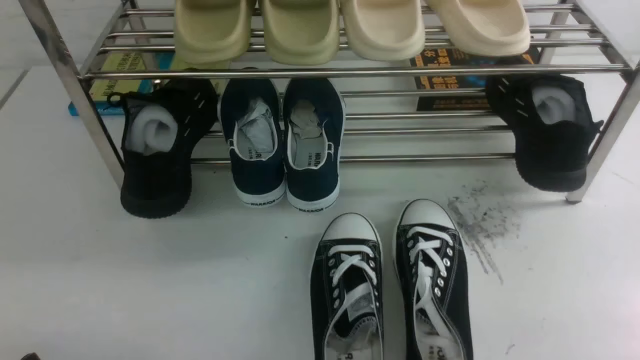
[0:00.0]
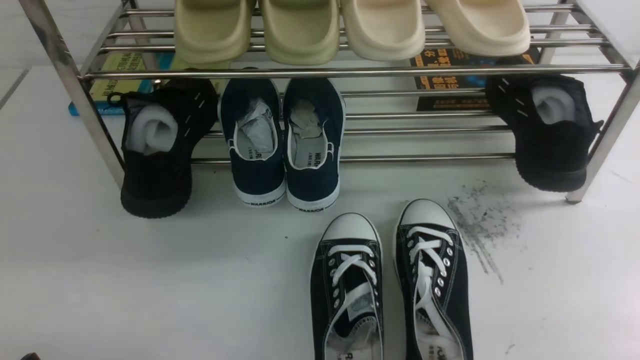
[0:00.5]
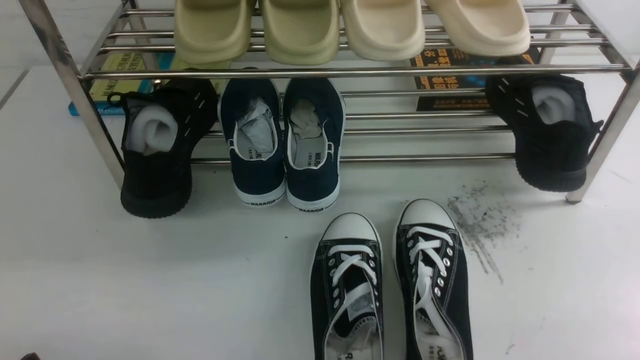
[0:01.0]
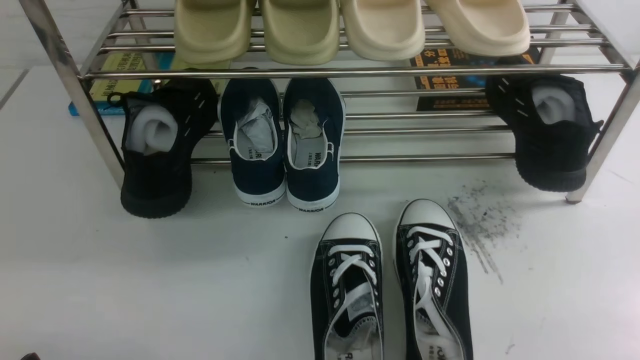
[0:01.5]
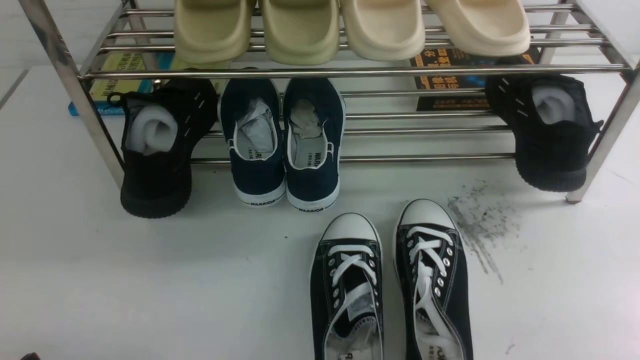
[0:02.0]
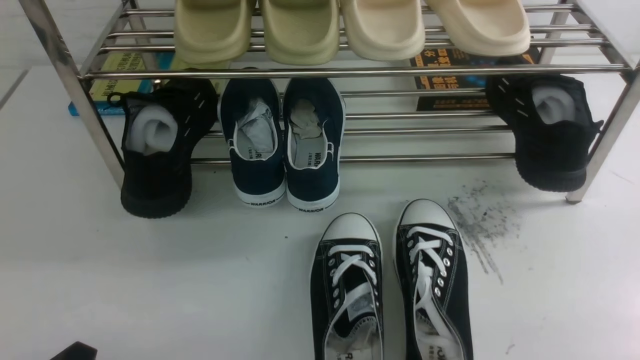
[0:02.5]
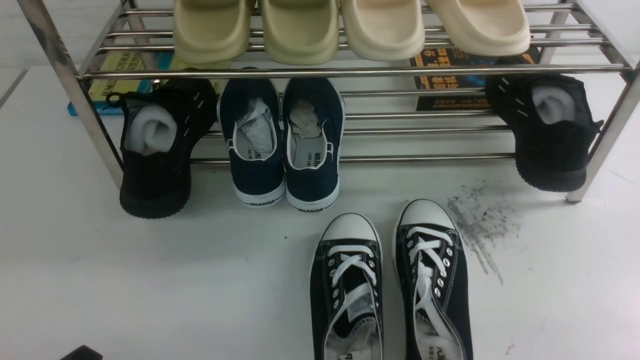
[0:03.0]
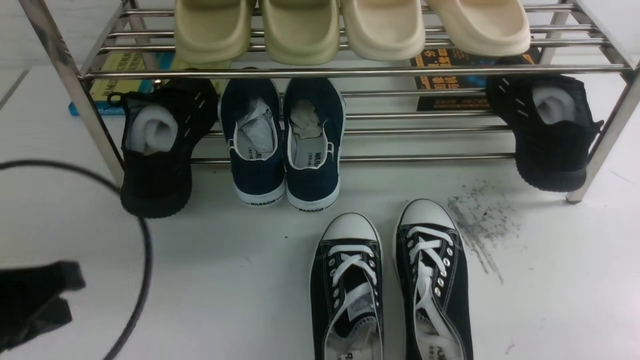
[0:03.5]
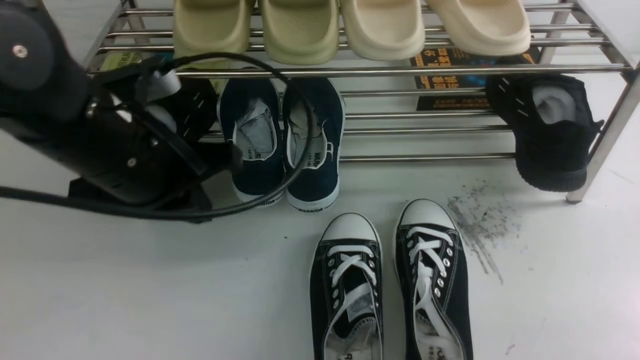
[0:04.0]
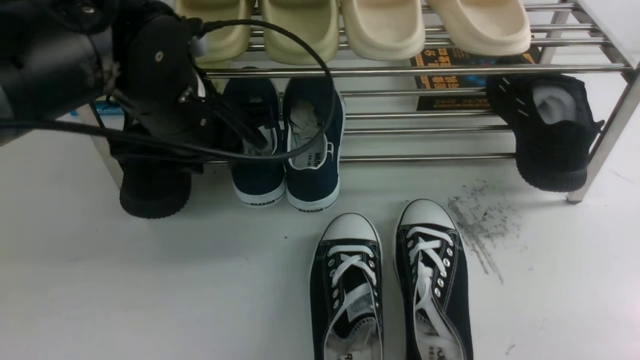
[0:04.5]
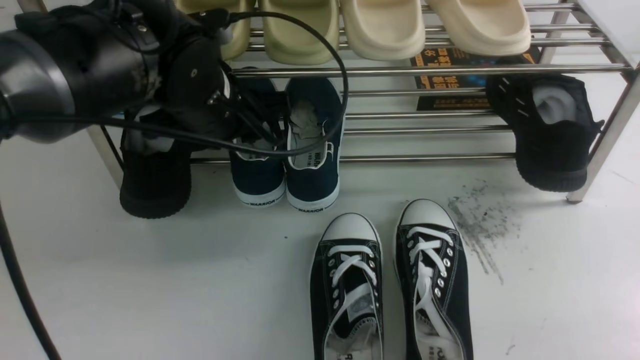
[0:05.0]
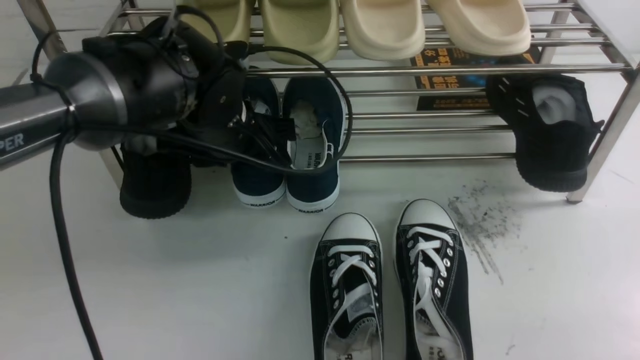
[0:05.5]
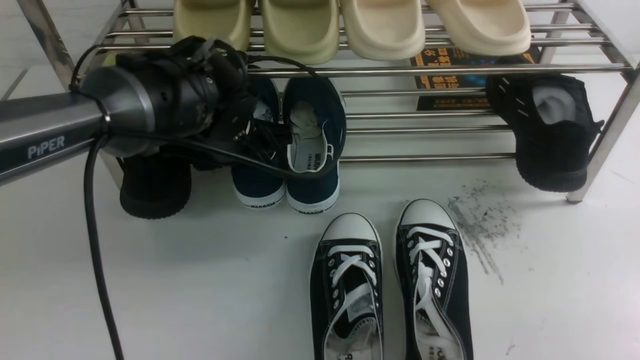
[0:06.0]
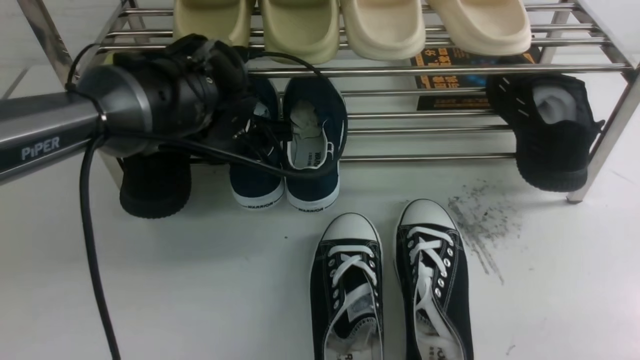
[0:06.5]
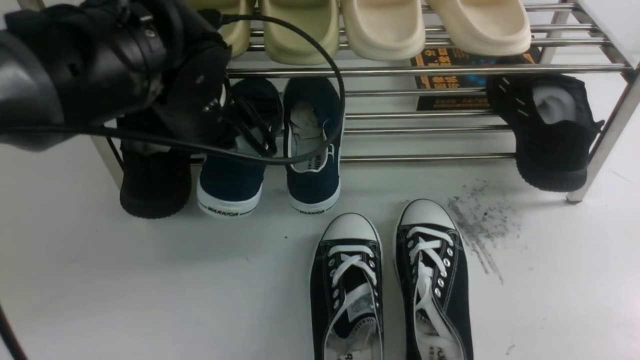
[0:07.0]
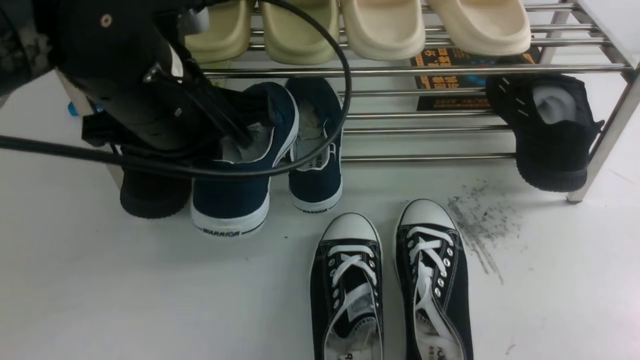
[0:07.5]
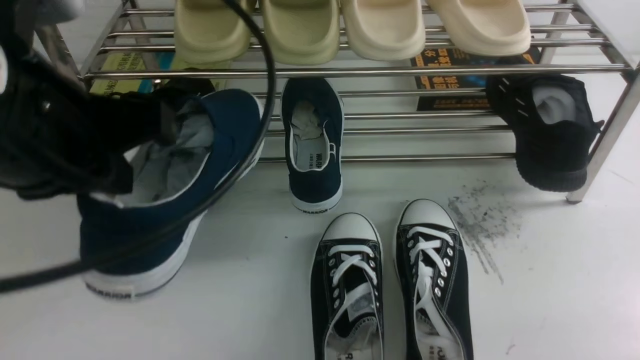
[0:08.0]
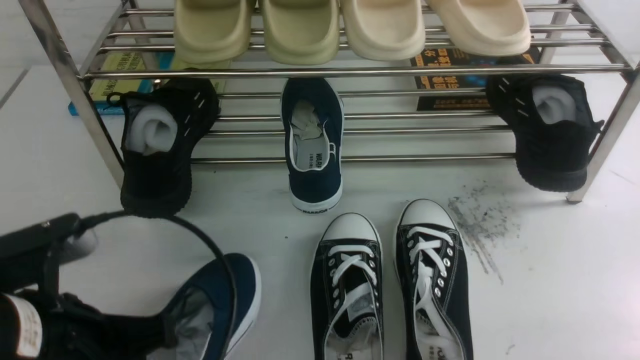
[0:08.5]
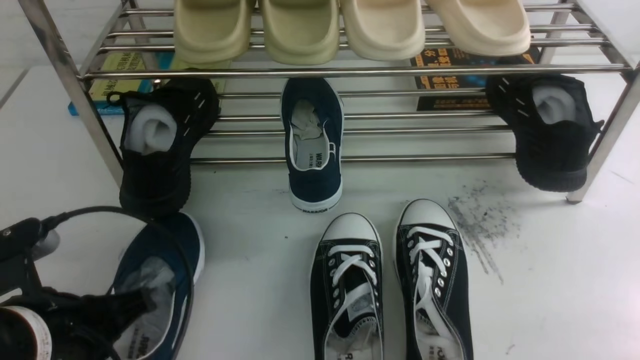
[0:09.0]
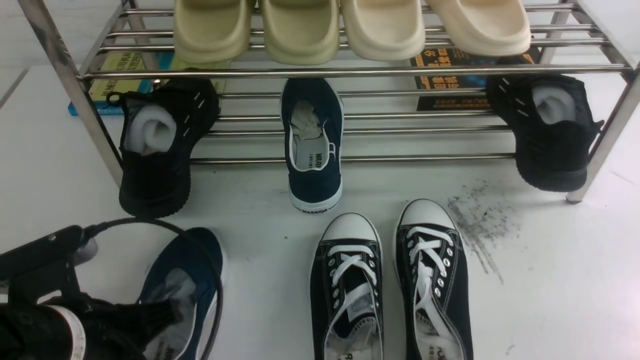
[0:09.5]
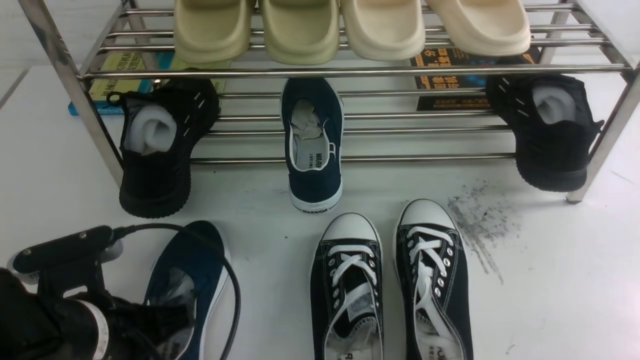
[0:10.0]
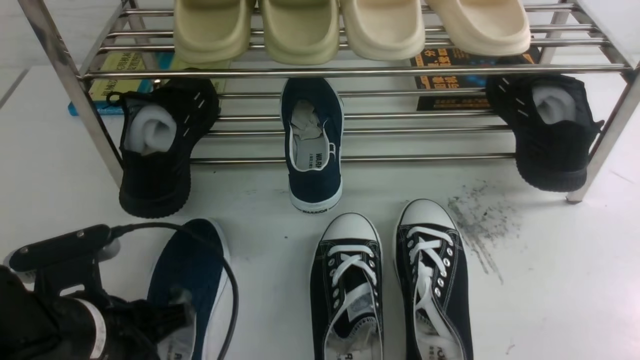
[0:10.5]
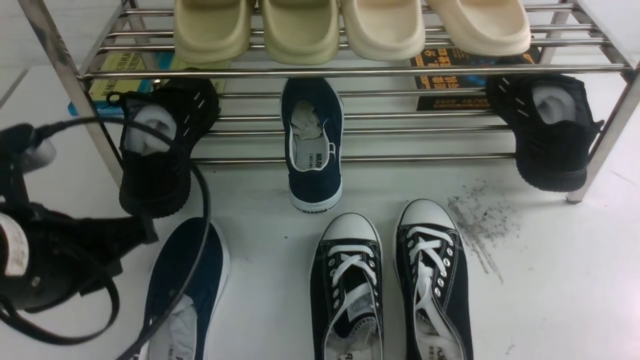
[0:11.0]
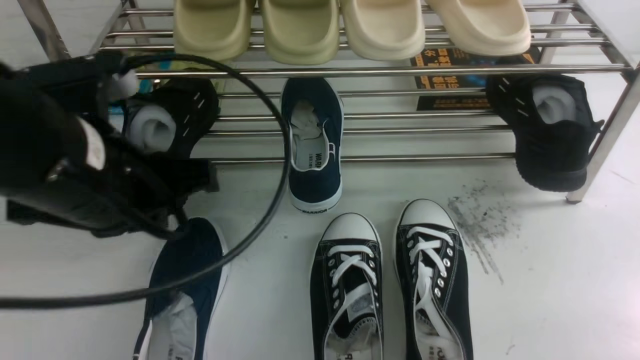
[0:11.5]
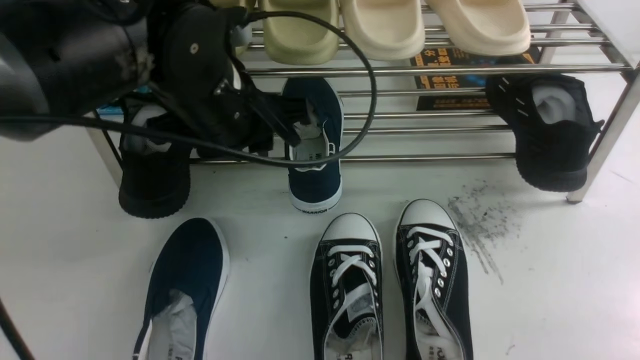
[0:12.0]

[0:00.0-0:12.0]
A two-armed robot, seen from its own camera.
Step, 0:00.0 to 0:06.5: use the left arm to clamp a shoe on the left side of the shoe rack.
Step, 0:07.0 to 0:10.5: Use your left arm to remove the clamped shoe from the shoe rack and put it down.
0:02.0 to 0:04.0: The left gripper moves forward, upward and to the right, approximately 25 cm, and closes up.
0:04.0 to 0:06.0: The left gripper travels forward, downward and to the right by roughly 15 cm, and opens its fingers.
0:06.0 to 0:08.0: The left gripper moves backward and upward, some 25 cm, and closes up.
0:08.0 to 0:10.0: The left gripper moves downward, approximately 20 cm.
0:10.0 to 0:12.0: The left gripper travels forward, upward and to the right by about 20 cm, and opens.

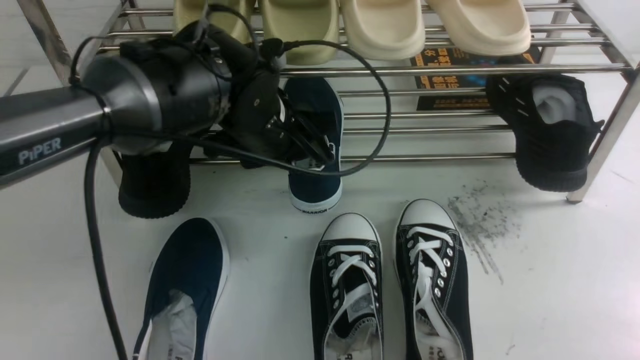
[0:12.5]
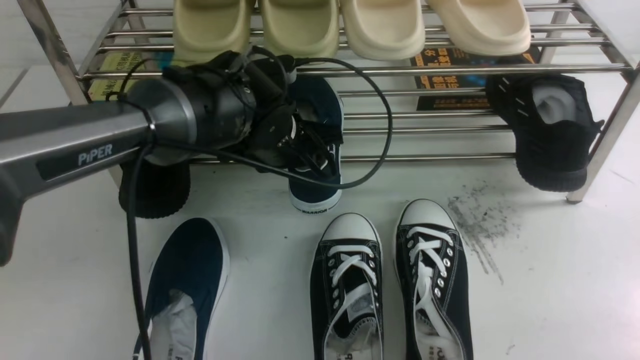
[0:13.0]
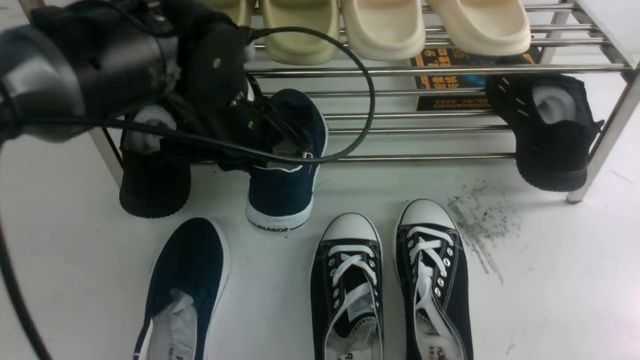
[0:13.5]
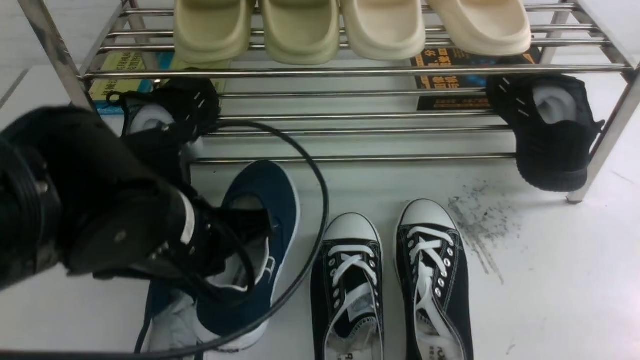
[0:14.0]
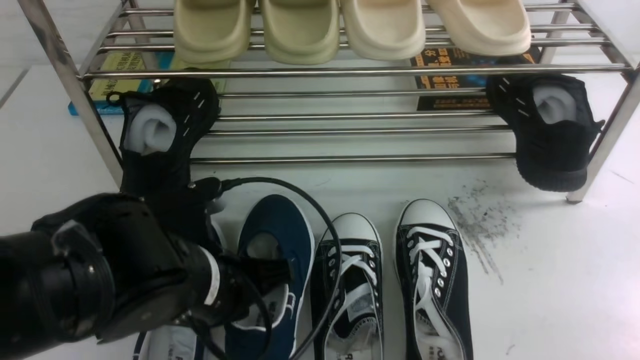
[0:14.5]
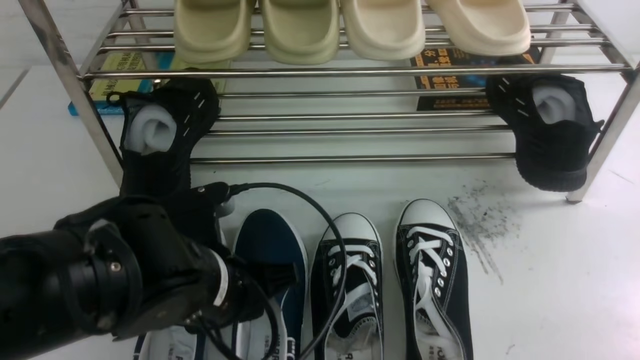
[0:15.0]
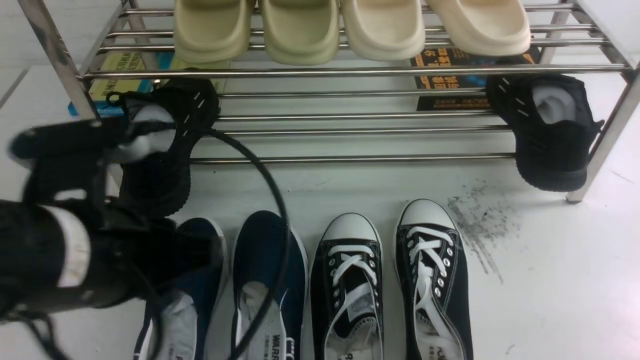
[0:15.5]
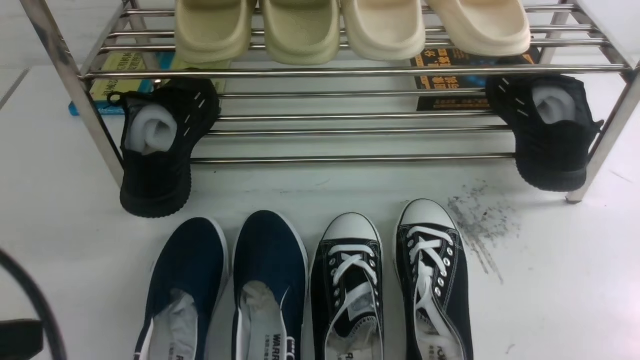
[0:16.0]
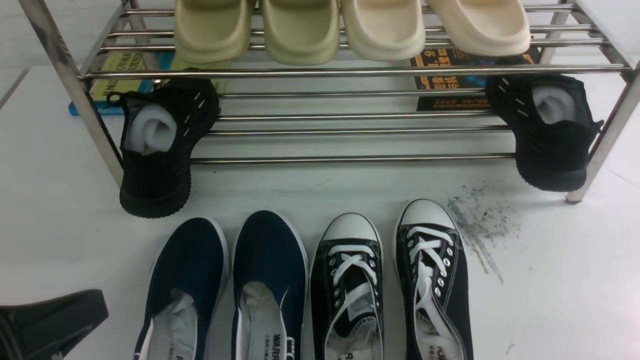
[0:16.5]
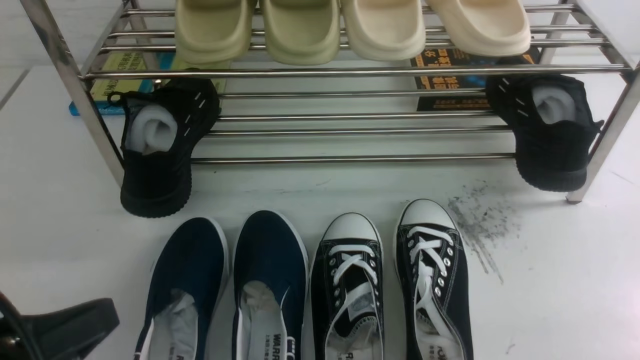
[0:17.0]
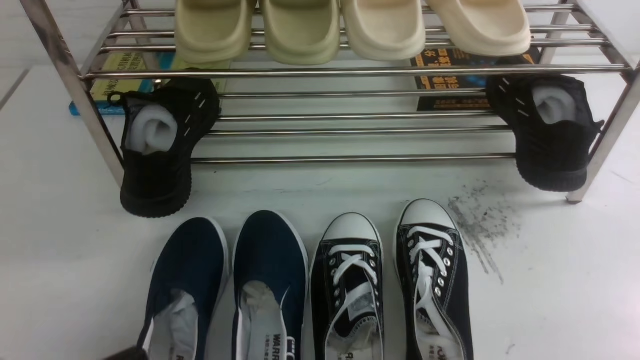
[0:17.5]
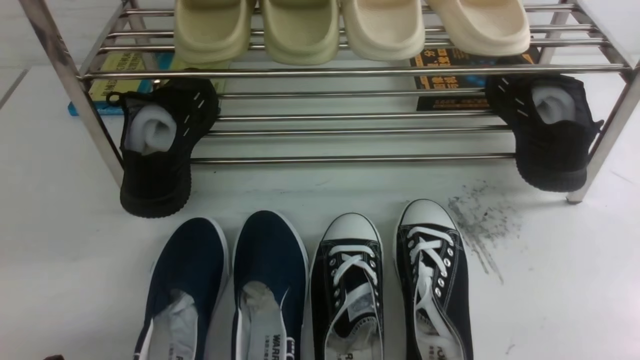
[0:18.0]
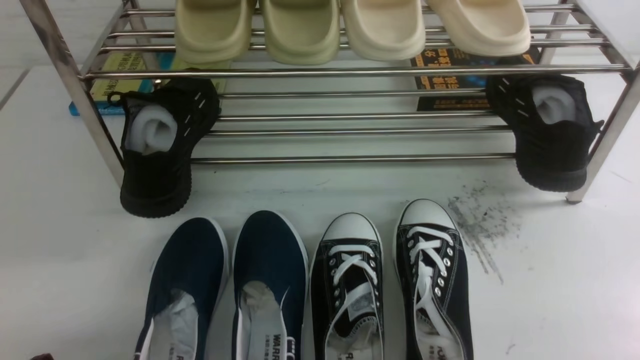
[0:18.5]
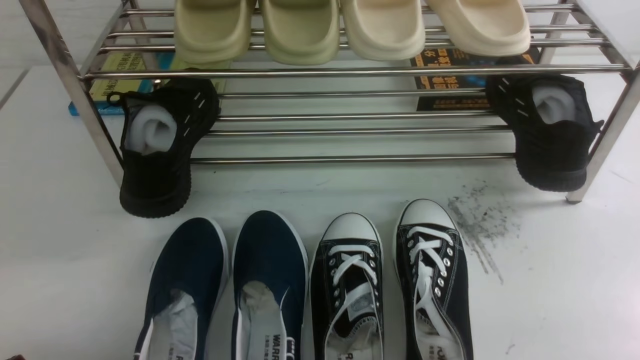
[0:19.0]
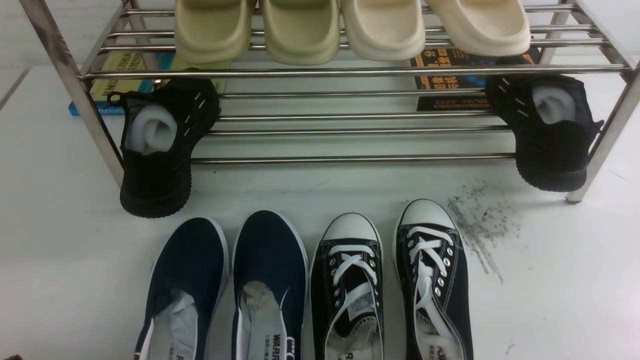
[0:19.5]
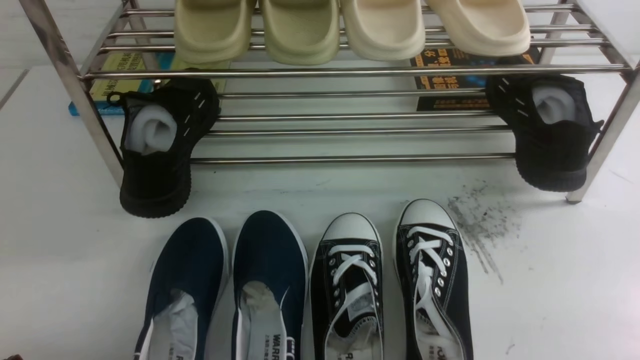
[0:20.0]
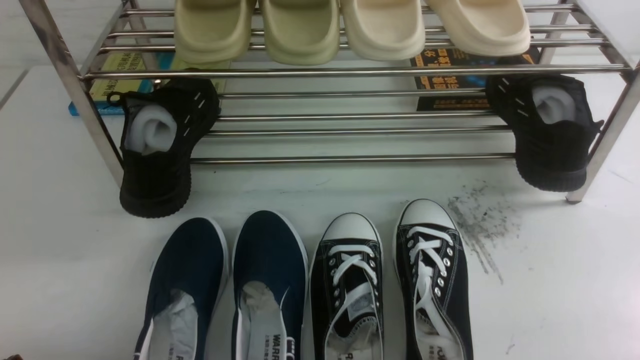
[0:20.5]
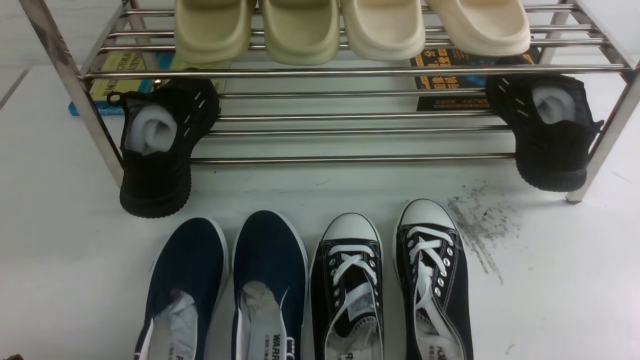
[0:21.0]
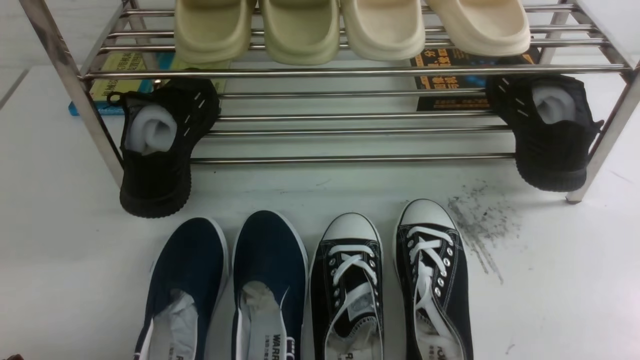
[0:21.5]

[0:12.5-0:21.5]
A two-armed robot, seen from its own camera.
Step, 0:14.0 to 0:15.0: Use your left arm to remove the clamped shoe from the shoe rack and put it down.
0:12.5 to 0:14.5: The left gripper moves backward, roughly 15 cm, and closes.
0:14.5 to 0:17.0: The left gripper travels backward and to the left by some 15 cm, and opens, then closes once more.
0:17.0 to 0:19.5: The left gripper shifts roughly 10 cm downward and to the left.
0:19.5 to 0:21.5: Both grippers stay about where they are.
